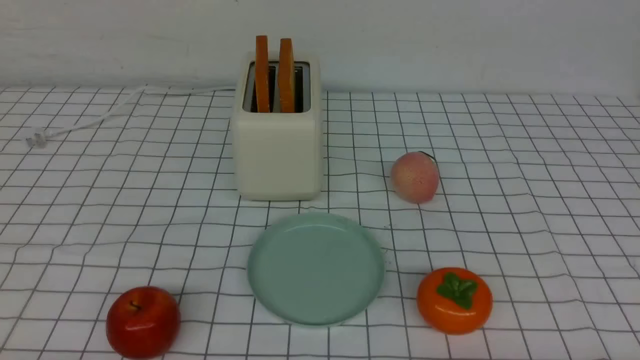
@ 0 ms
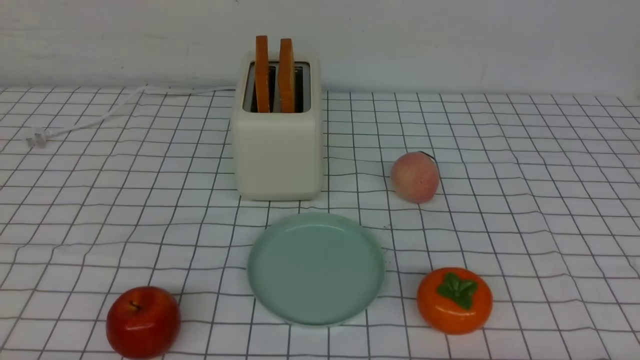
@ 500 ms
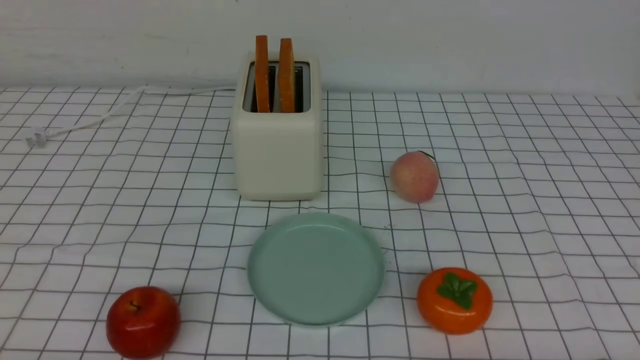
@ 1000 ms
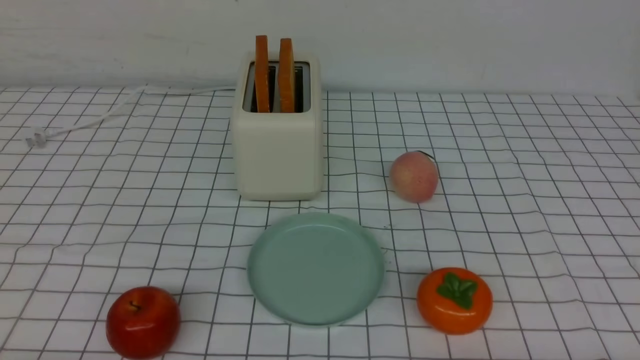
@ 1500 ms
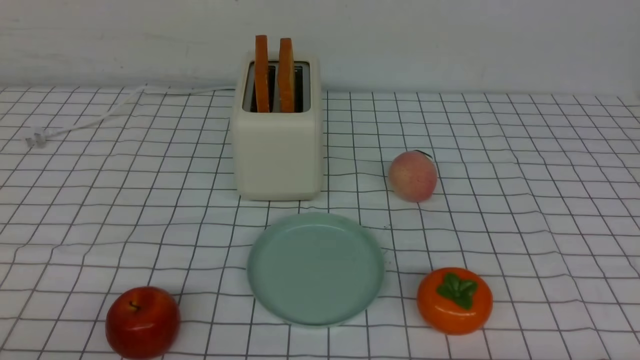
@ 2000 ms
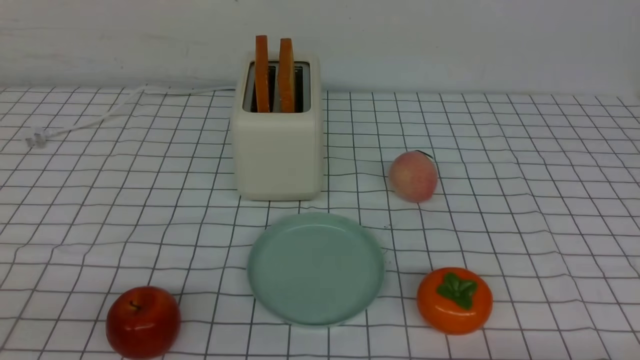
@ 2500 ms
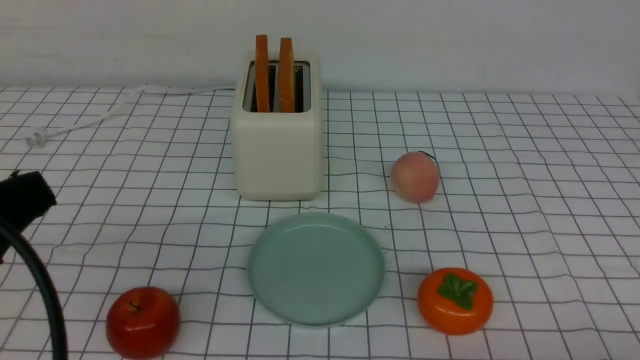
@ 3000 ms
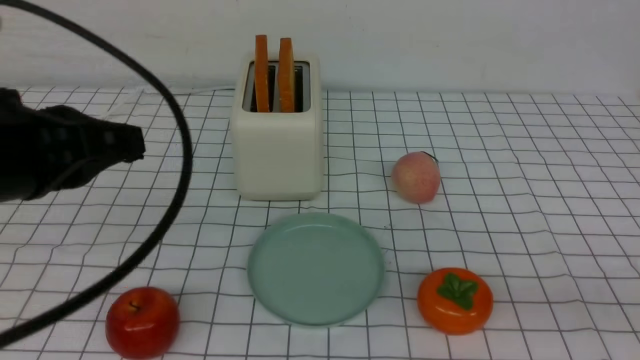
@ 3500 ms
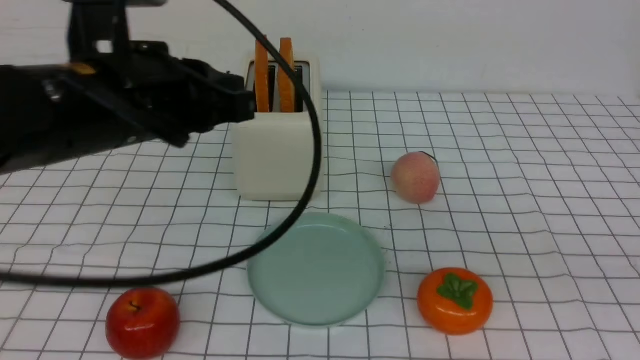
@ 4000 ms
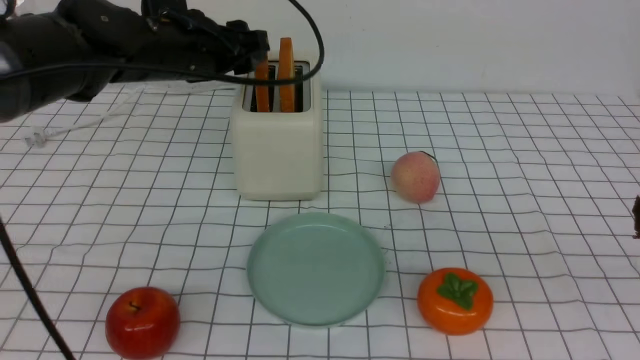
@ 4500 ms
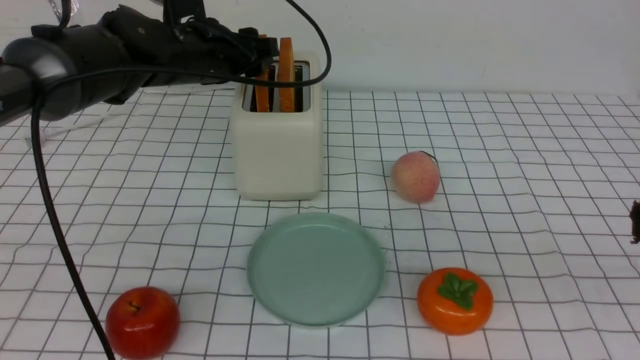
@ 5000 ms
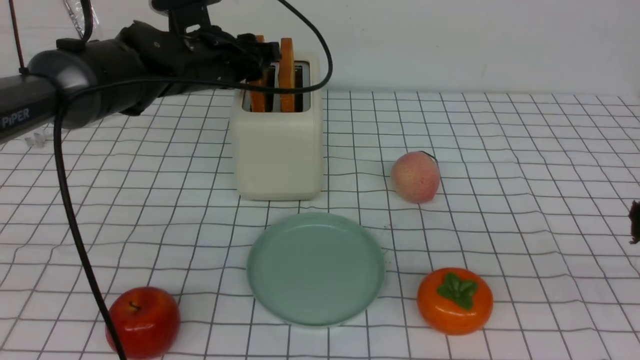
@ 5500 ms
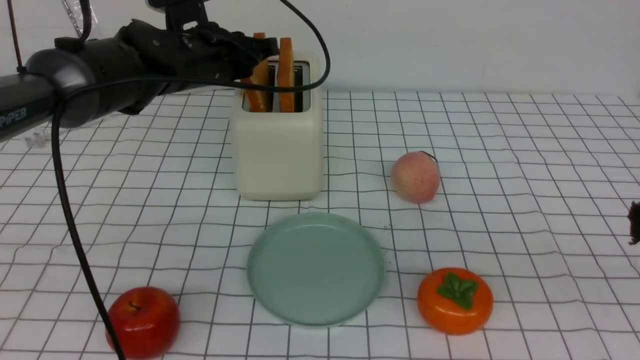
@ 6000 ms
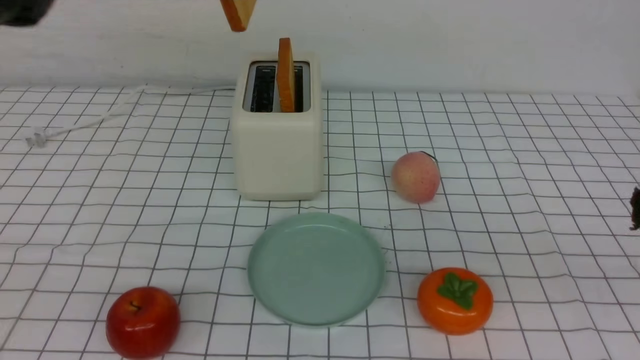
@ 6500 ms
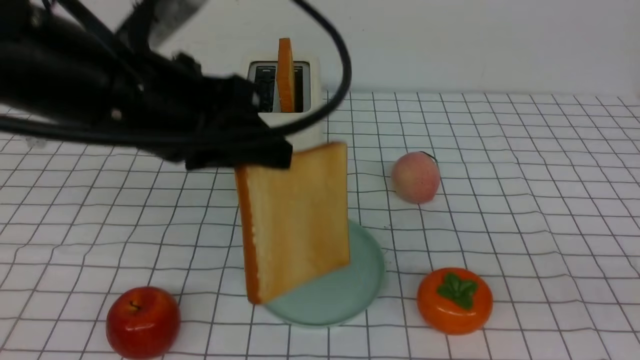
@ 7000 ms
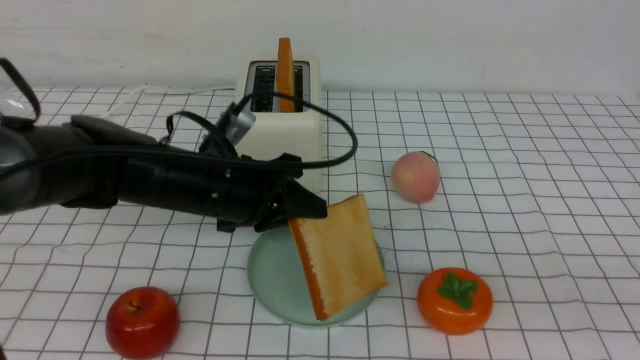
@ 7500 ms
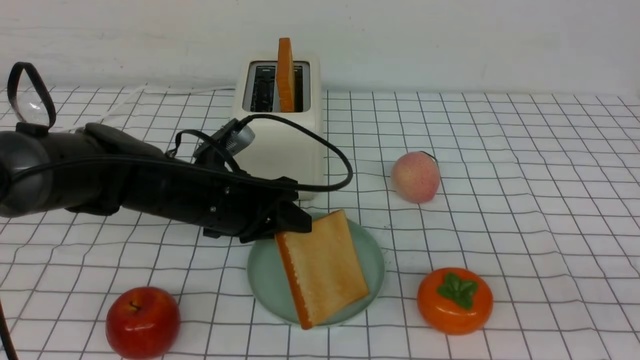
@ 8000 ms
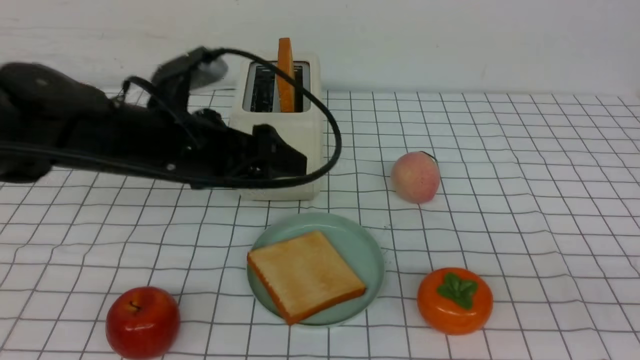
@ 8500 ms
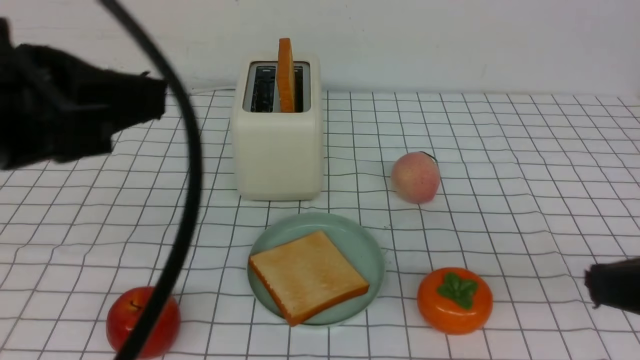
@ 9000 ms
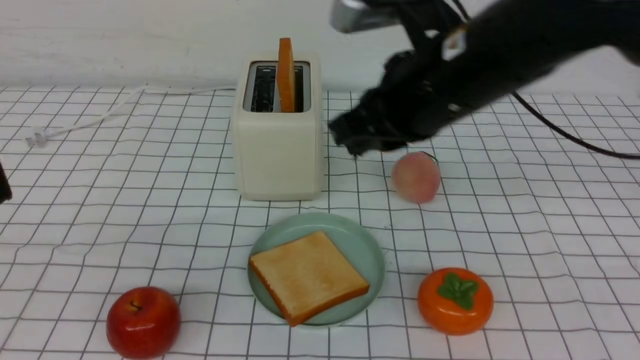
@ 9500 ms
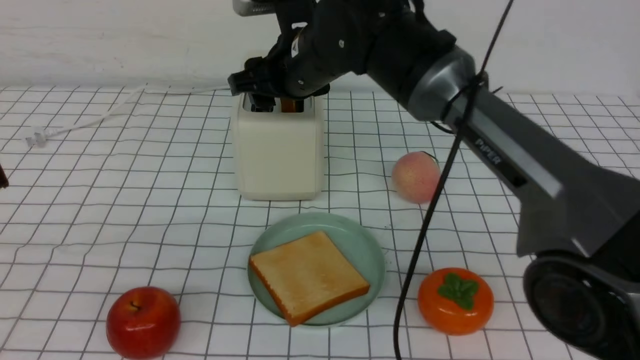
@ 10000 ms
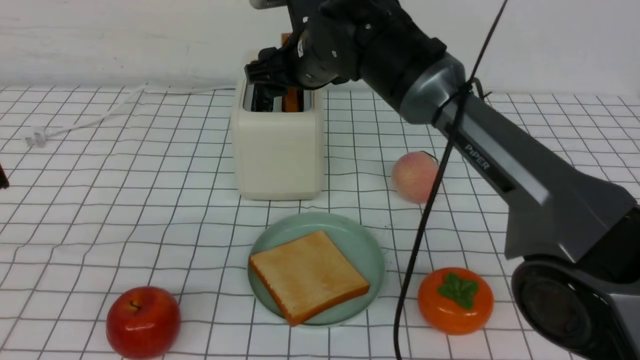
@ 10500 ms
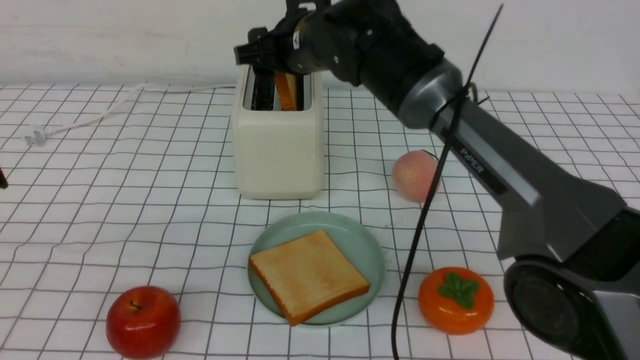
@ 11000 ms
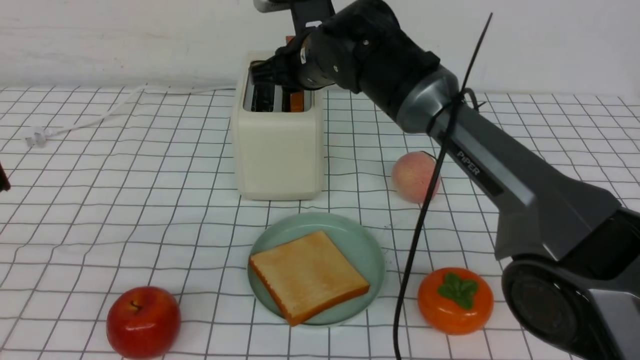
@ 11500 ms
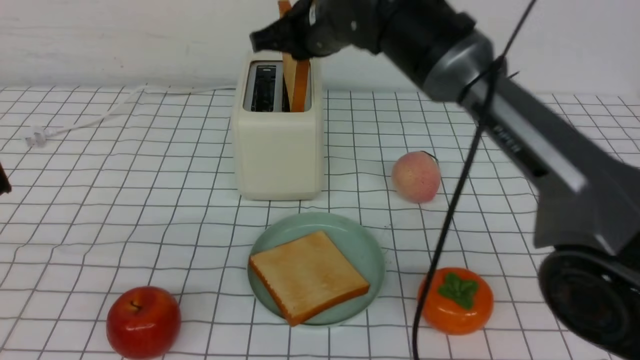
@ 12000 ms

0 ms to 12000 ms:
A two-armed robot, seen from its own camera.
Task of the whole recording: take toasted bread from bread machine on white checkered table place on plate.
Step, 0 ms to 6000 ms: use the left arm to take out a slice of bread.
Step, 6500 ms to 8500 ms: use the left arm to put a slice of bread into the empty plate.
Step, 9000 ms to 12000 ms: use the right arm to take out a slice of bread.
2000 ms to 4000 ms: The right gripper is displaced upward by some 20 cm, and closes its fingers, while the left gripper goes some 30 cm forward, upward and to the right, and closes up.
4000 ms to 6000 ms: The left gripper travels forward by about 20 cm, and opens, then closes again.
6000 ms to 8000 ms: The left gripper shifts approximately 15 cm backward and downward.
8000 ms to 10000 ms: The left gripper heads backward and upward, covering about 35 cm, and closes. Meanwhile the right gripper goes some 40 cm forward and to the left, and opens up.
10000 ms to 12000 ms: The right gripper closes.

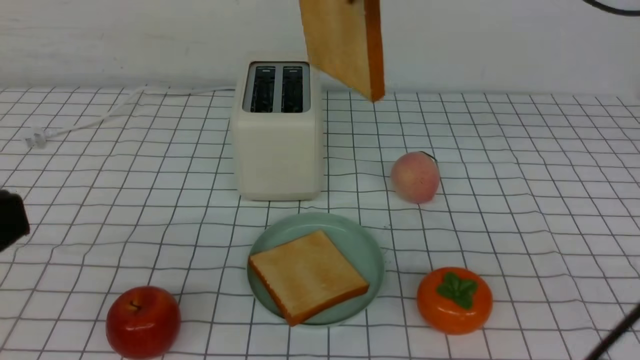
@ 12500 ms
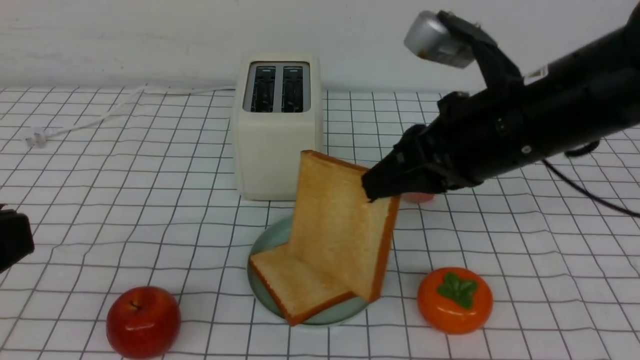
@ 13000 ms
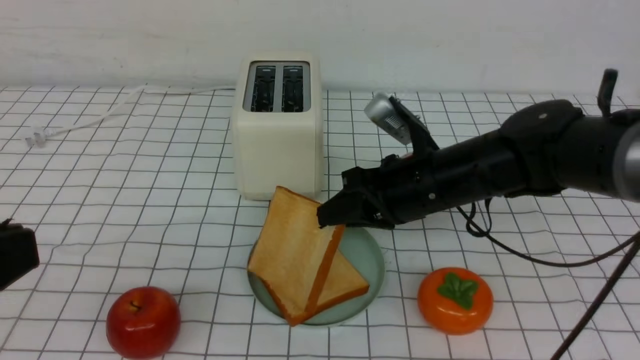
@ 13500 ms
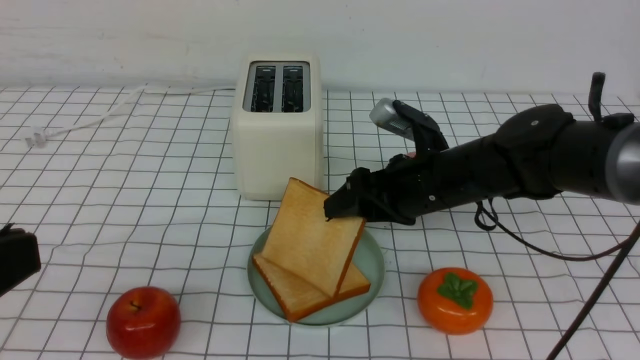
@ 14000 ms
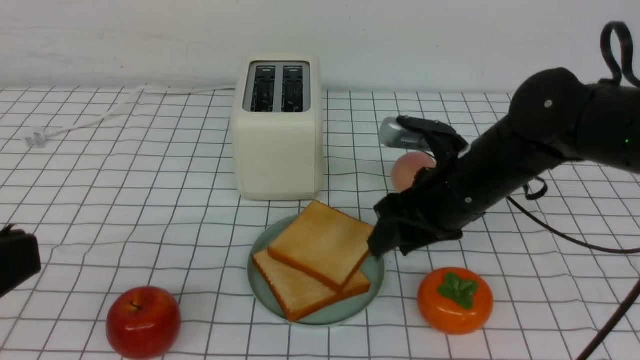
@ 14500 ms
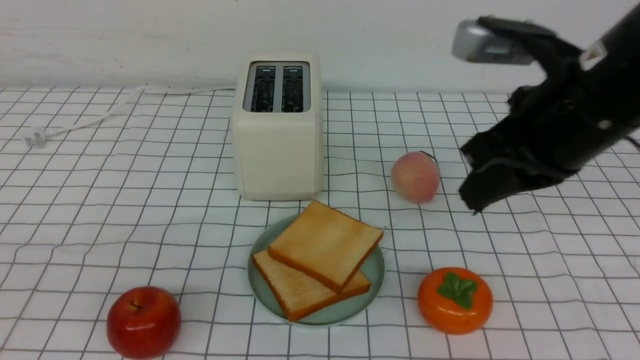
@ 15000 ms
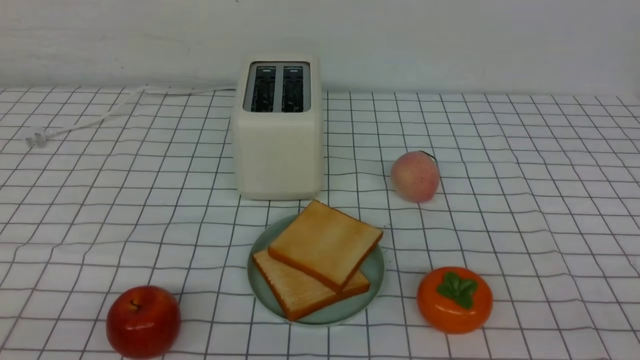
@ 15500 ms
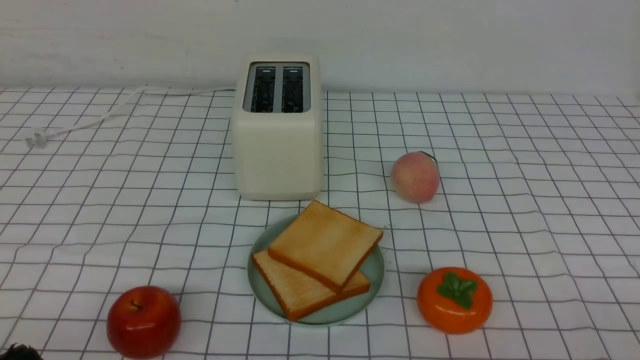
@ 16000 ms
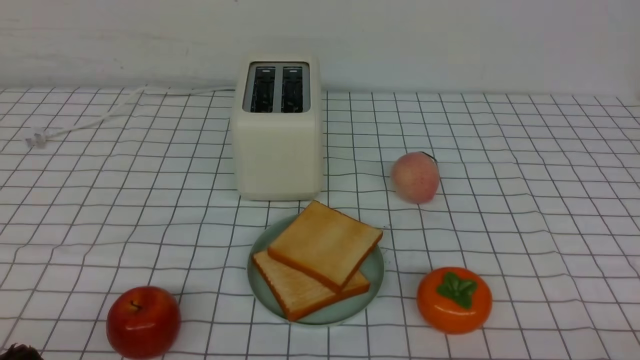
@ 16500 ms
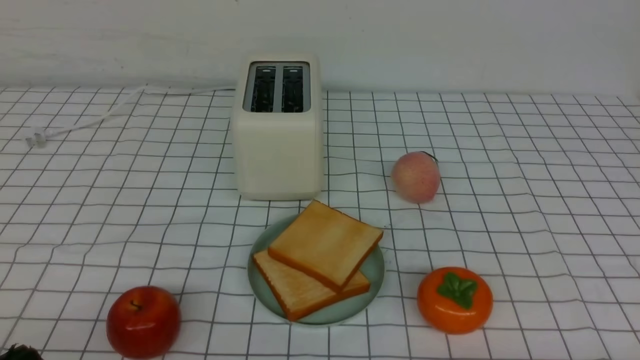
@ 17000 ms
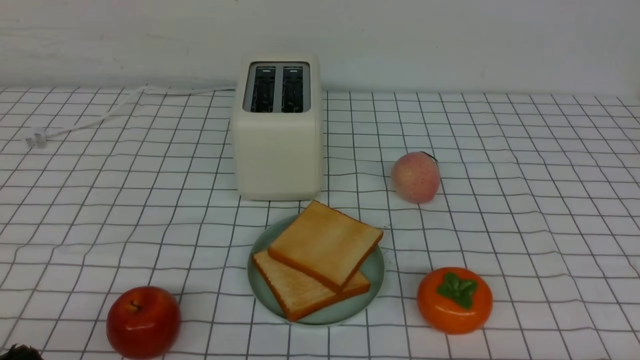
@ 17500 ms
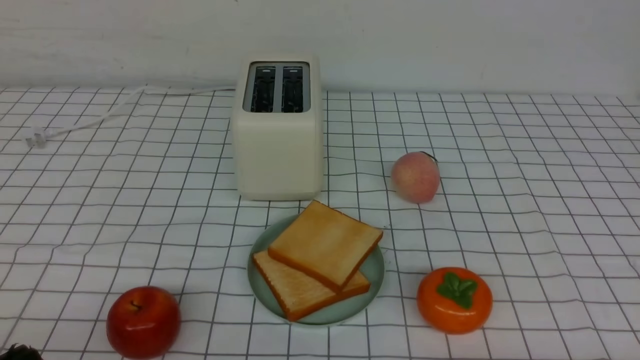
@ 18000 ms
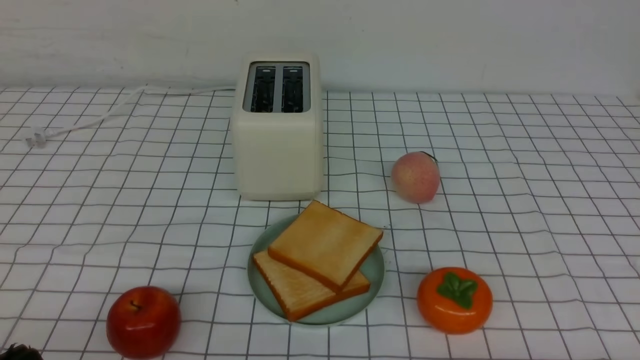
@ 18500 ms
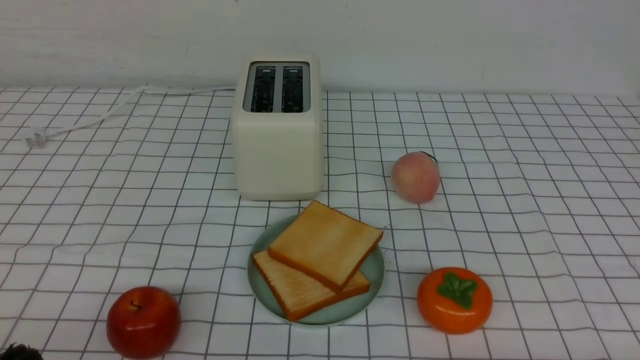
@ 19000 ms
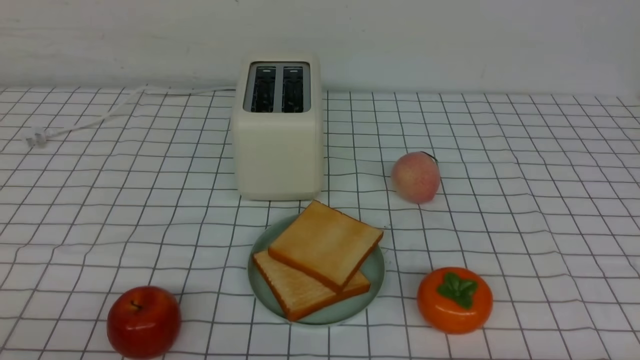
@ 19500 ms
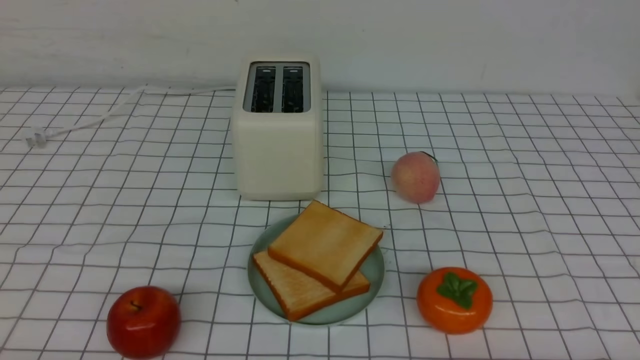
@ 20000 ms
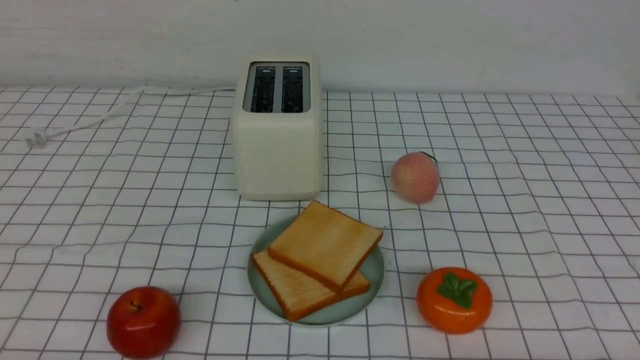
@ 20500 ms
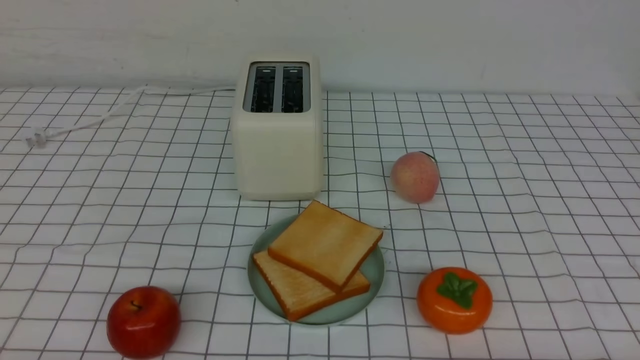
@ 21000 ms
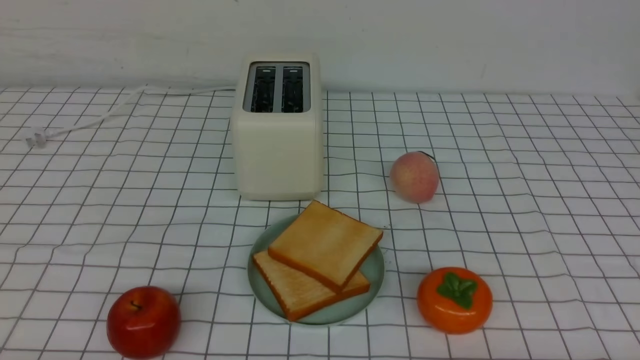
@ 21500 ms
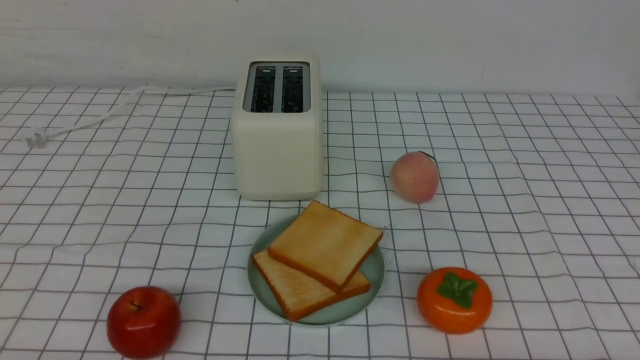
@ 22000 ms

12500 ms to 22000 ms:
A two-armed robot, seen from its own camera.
Task of the whole recording: take toasted bread from bread machine on white checkered table place on plate.
Step, 12500 ms to 14500 ms: use the right arm to put a slice of bread into the plate.
12500 ms to 14500 ms: The right gripper shifts some 20 cm downward, and opens up.
14500 ms to 16500 ms: The left gripper travels downward by approximately 10 cm. The right gripper travels backward and to the right by some 35 cm, and closes.
